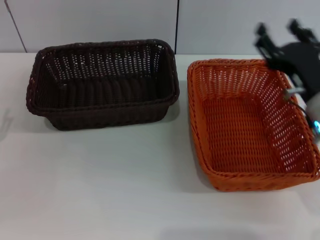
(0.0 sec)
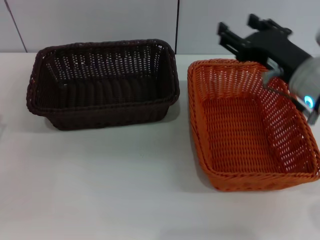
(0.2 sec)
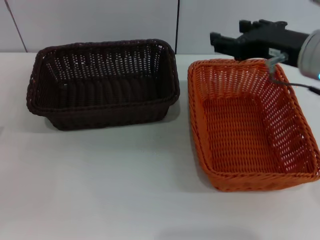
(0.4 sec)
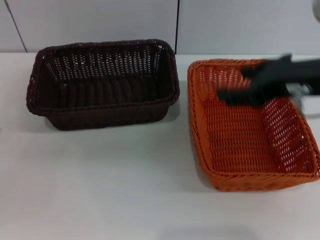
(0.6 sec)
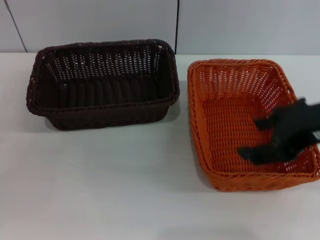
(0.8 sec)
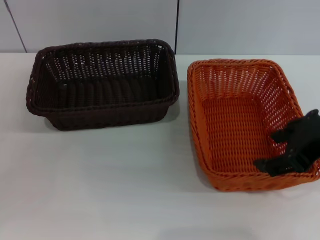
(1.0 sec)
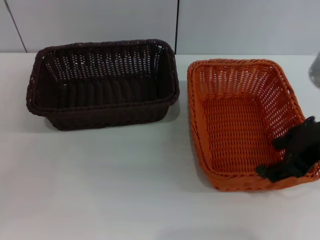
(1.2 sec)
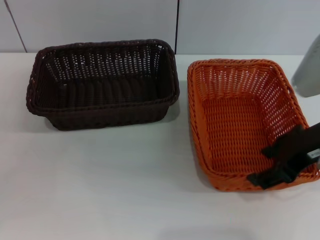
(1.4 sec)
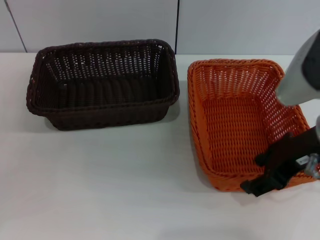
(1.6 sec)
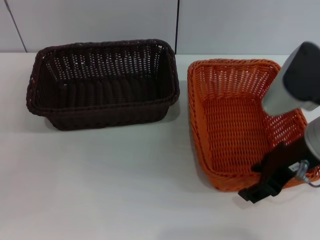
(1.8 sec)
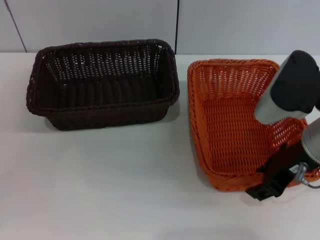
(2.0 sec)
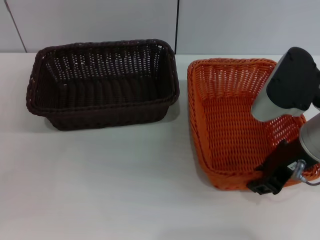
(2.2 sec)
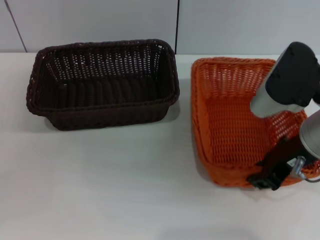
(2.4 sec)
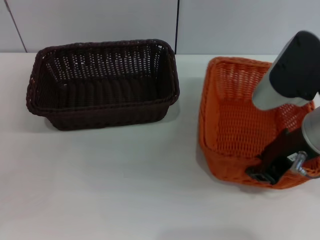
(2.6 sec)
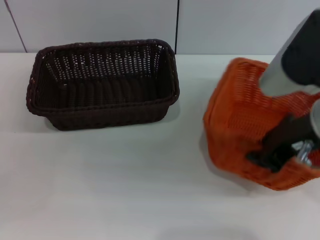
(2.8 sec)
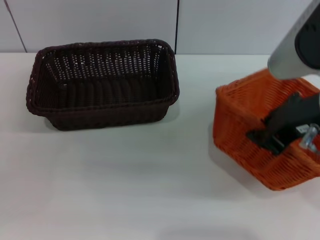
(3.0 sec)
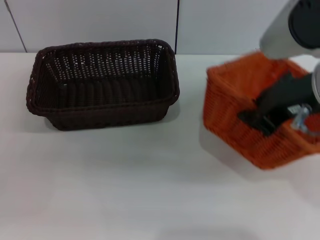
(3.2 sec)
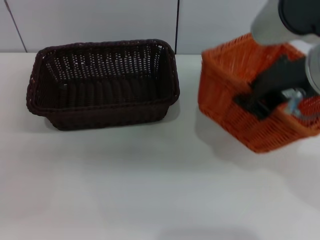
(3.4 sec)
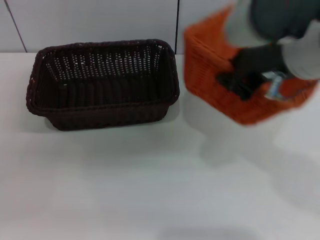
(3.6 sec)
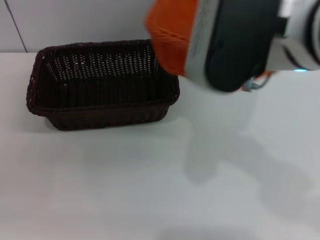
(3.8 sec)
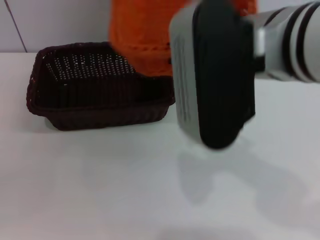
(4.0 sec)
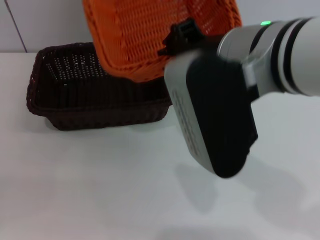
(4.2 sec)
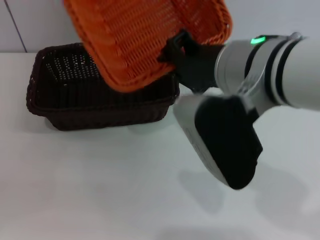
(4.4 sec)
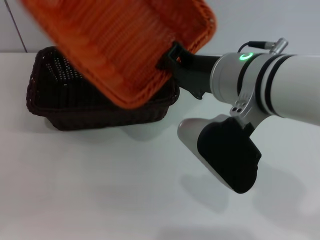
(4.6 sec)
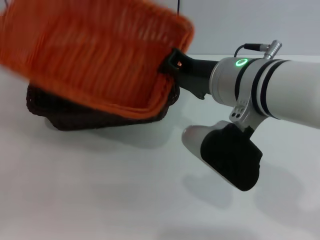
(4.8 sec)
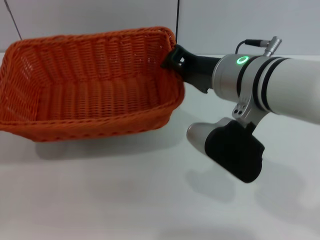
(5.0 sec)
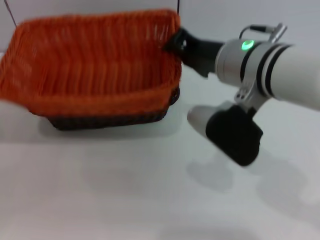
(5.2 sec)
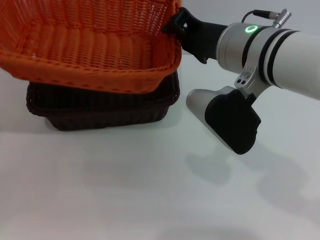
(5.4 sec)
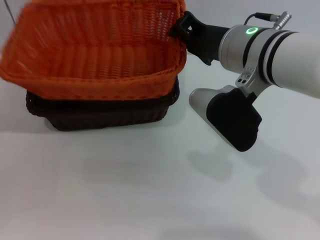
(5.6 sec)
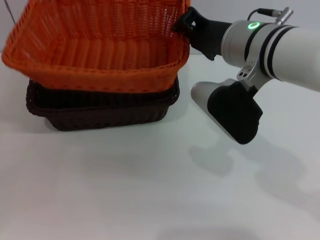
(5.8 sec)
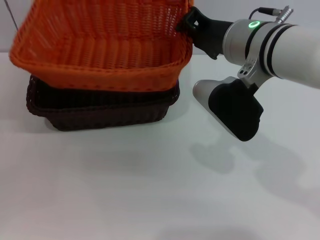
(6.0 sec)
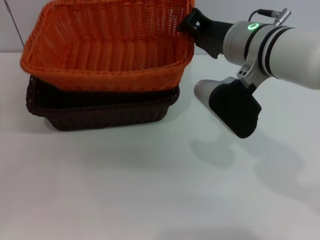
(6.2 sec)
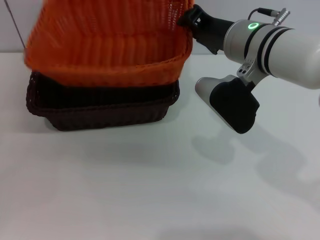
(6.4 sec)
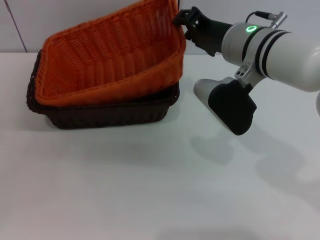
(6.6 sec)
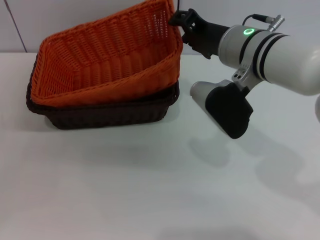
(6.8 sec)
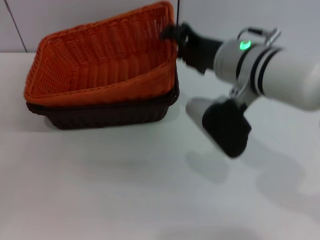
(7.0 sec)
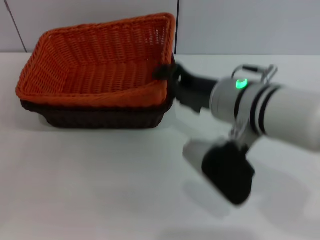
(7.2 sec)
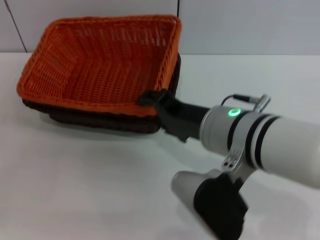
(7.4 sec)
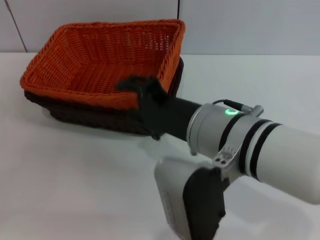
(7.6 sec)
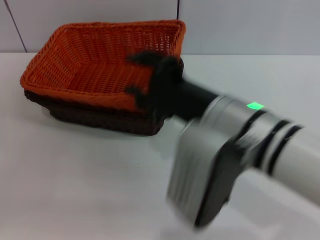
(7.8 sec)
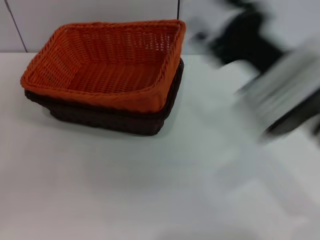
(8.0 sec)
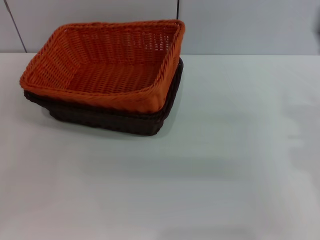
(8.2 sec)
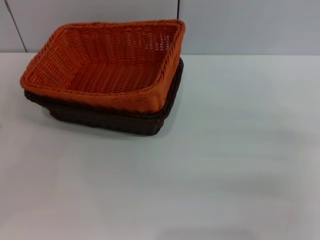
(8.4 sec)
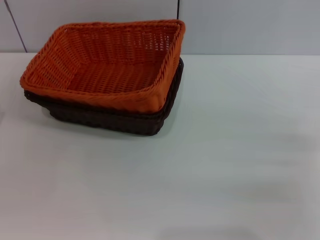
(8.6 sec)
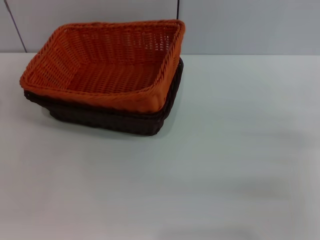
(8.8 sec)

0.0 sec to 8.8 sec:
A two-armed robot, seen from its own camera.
Step, 0.0 sec to 2.8 sec: Pick up the light basket with the right gripper.
Step, 3.2 sec to 7.4 sec: Place the light basket on the dark basket with the right gripper.
0.0 sec to 1.4 sec: The right gripper goes some 10 cm upward.
1.4 sec to 3.0 sec: The right gripper shifts by some 5 cm, and closes its fingers.
3.0 sec to 4.4 sec: The right gripper is displaced to the left by some 10 cm.
4.4 sec to 5.8 sec: The right gripper moves forward, roughly 5 cm.
5.8 sec to 7.4 sec: The right gripper is displaced backward by roughly 10 cm, and opens.
7.4 sec to 8.8 sec: The left gripper moves forward and upward, some 10 cm. Meanwhile the right gripper is displaced to the right by about 20 cm.
